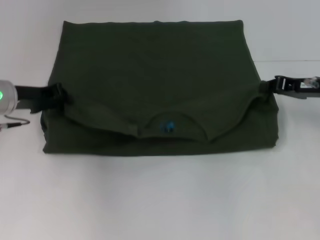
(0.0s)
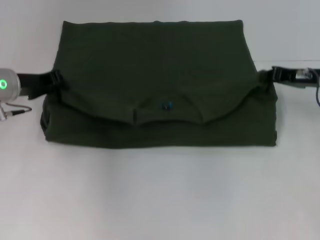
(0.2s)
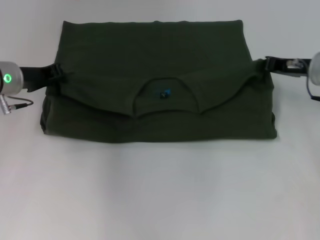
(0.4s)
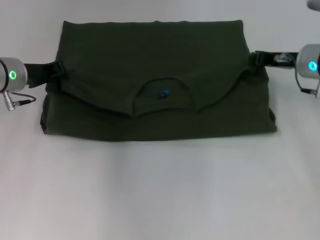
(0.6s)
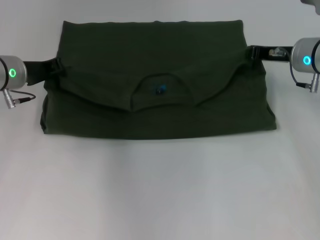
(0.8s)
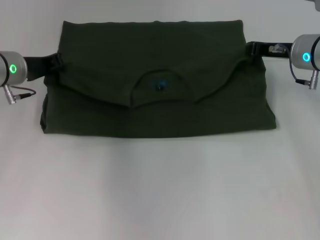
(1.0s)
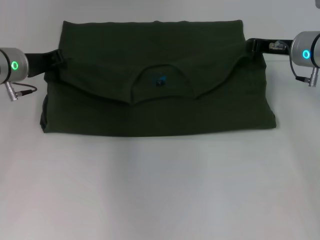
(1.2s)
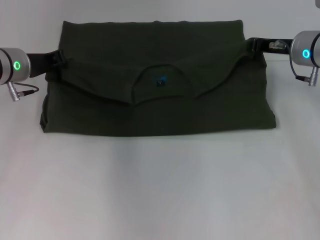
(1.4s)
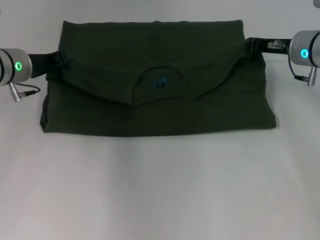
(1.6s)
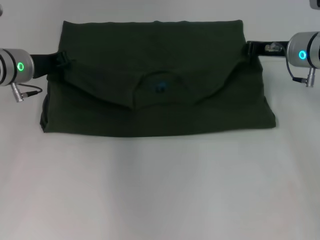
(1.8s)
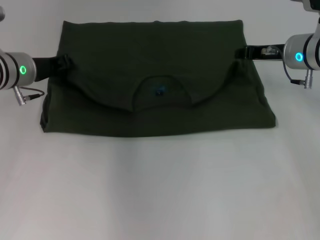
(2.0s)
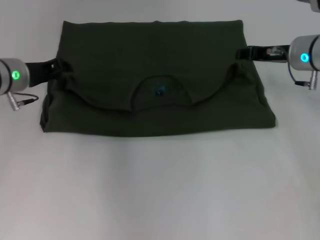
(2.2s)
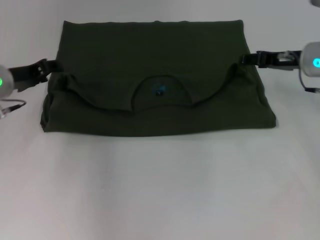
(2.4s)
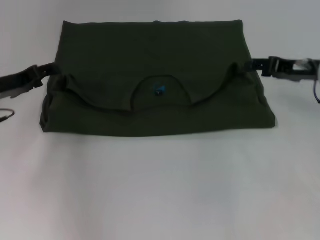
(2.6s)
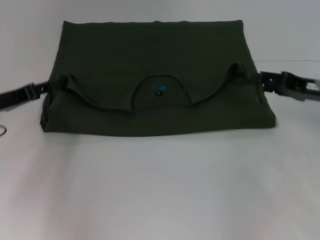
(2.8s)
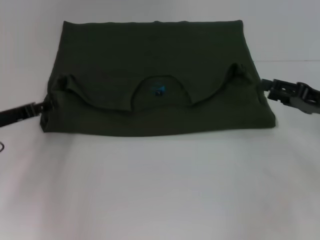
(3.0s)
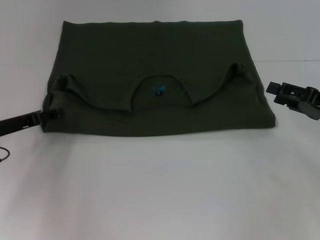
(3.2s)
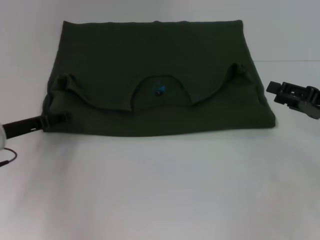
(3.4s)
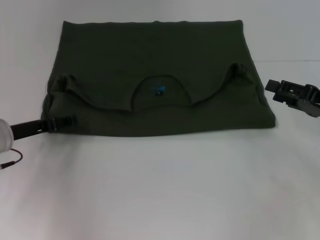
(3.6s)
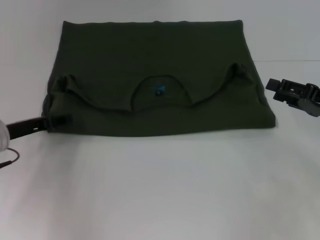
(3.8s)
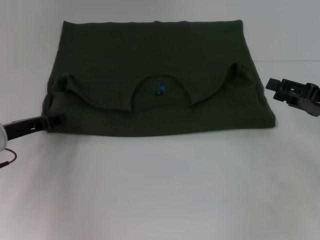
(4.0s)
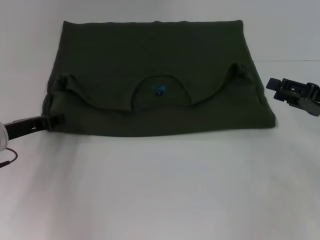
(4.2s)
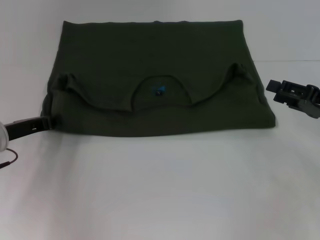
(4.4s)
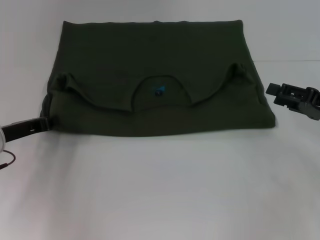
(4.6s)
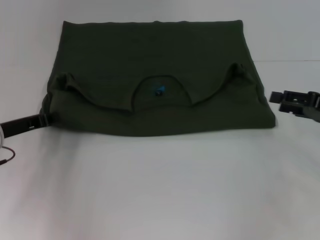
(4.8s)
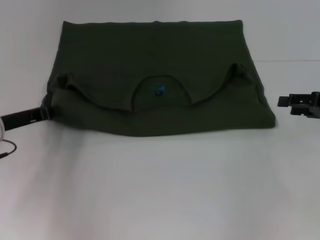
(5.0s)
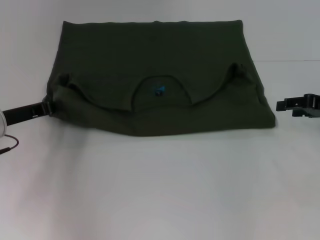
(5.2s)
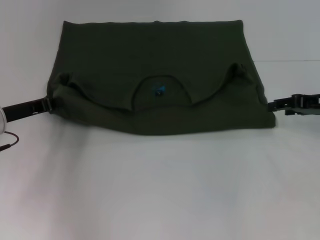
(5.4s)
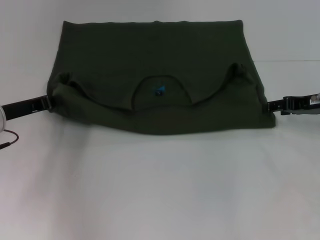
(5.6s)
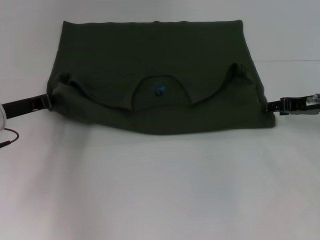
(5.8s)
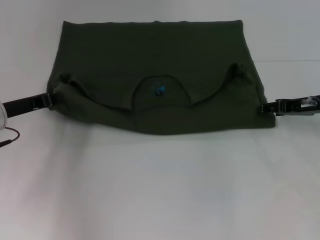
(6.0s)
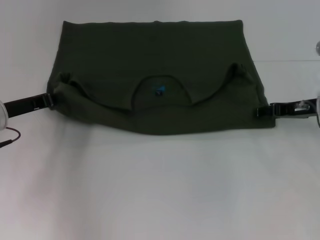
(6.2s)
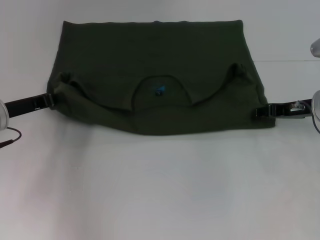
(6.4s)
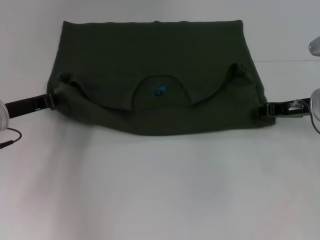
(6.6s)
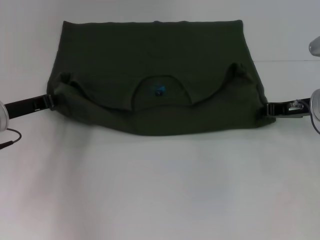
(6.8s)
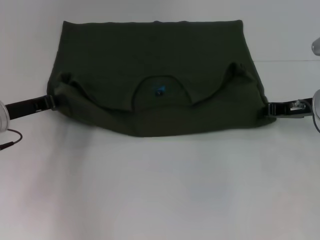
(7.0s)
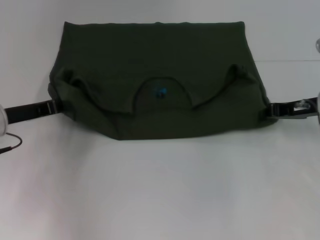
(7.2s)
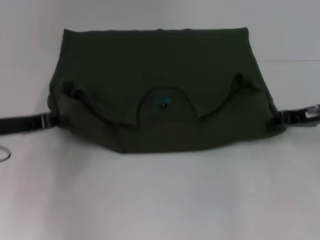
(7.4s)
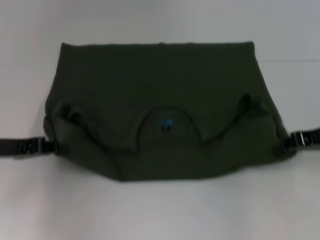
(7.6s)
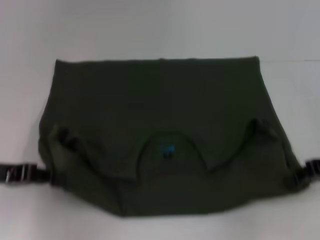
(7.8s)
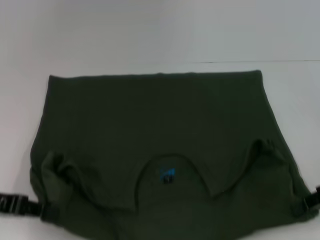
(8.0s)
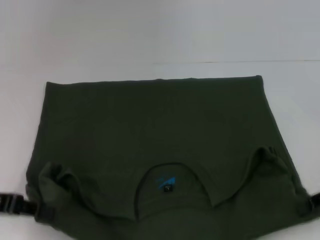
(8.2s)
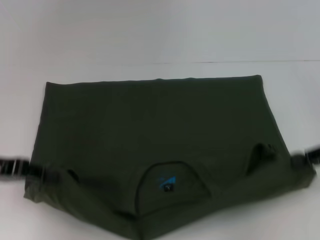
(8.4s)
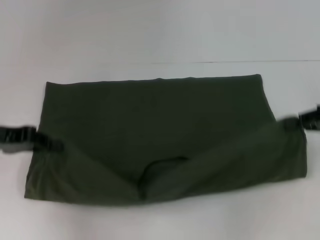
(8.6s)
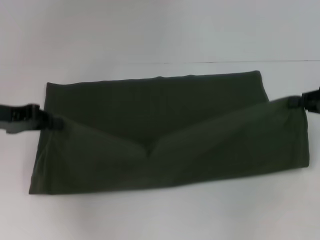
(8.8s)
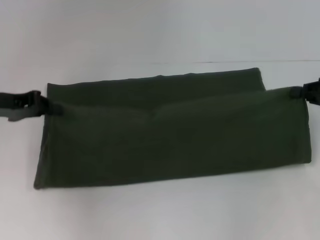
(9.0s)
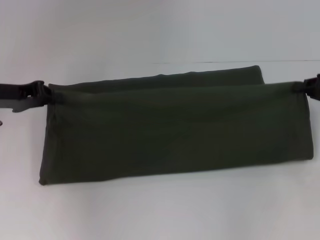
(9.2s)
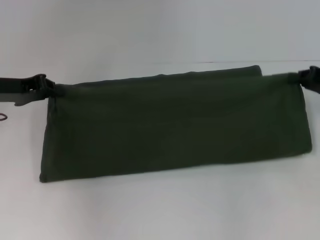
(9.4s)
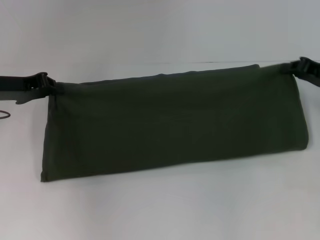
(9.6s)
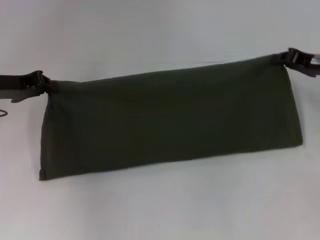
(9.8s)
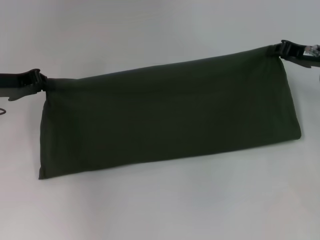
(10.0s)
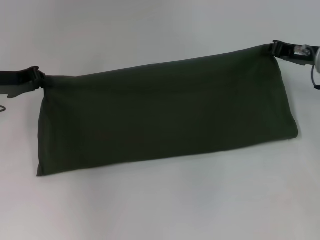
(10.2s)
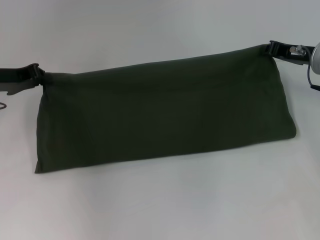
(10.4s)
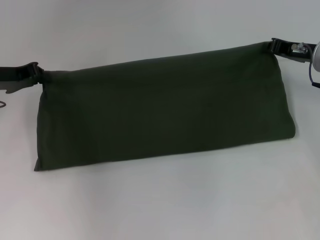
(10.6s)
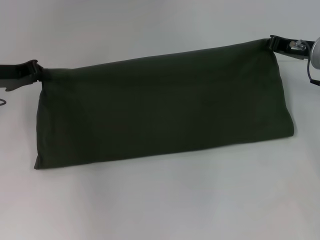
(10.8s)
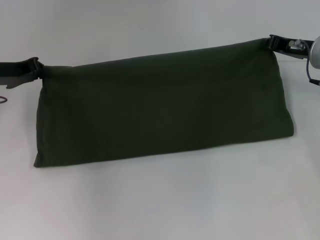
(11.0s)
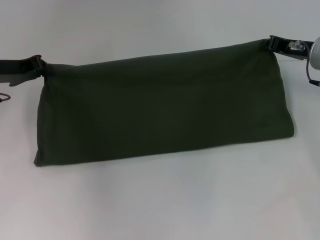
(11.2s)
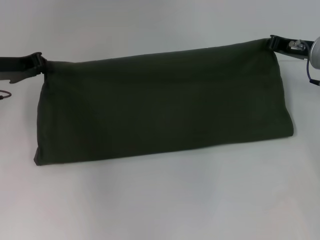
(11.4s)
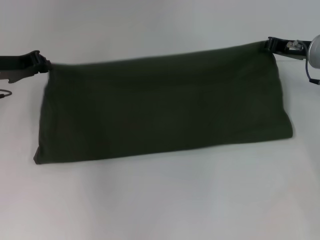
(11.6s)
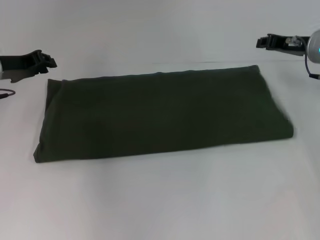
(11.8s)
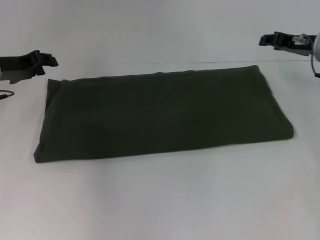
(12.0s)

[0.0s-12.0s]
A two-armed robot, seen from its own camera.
Step, 0.0s to 2.0s: Fold the clothes with your left hand.
Step, 0.0s to 2.0s: Fold the clothes with your right hand.
Step, 2.2s to 8.0s: Pull the clothes with your left hand.
Step, 2.2s to 8.0s: Pull the clothes with your right hand.
Step, 8.2s to 11.6s: Fold the clothes with your right hand.
0.0s to 1.6s: The right gripper travels forward and to the left by roughly 10 cm, while the left gripper shifts by some 5 cm.
1.6s to 3.0s: The right gripper goes roughly 15 cm backward and to the right, and opens. Meanwhile the left gripper moves backward, to the left and downward, some 10 cm, and opens up.
3.0s to 4.4s: The left gripper closes its fingers.
4.4s to 6.0s: The right gripper moves forward, approximately 5 cm.
6.0s to 7.6s: The right gripper ends up roughly 5 cm from where it was, and closes. Meanwhile the left gripper heads backward, covering about 5 cm.
7.6s to 9.0s: The left gripper changes place by approximately 5 cm.
9.0s to 10.4s: The right gripper is displaced forward and to the left by approximately 10 cm.
10.4s to 12.0s: The grippers make only small movements.

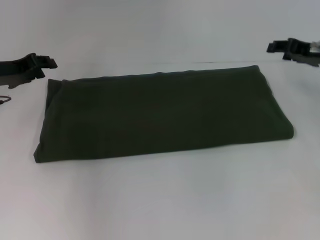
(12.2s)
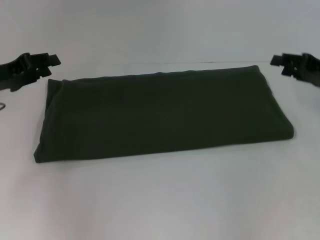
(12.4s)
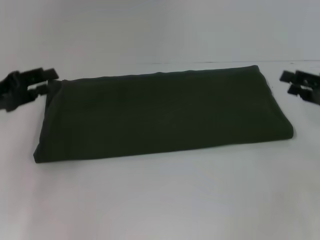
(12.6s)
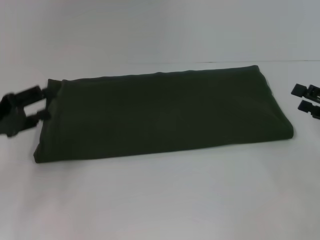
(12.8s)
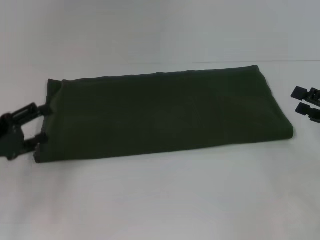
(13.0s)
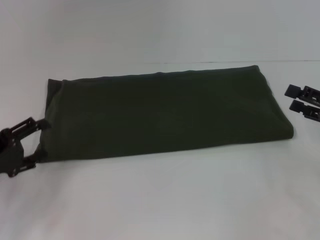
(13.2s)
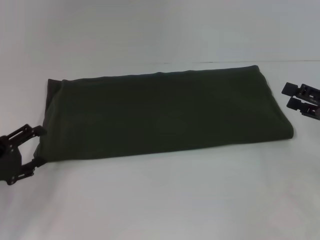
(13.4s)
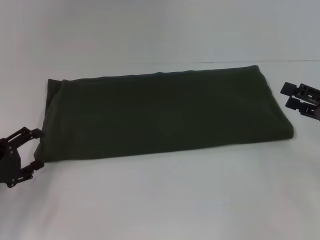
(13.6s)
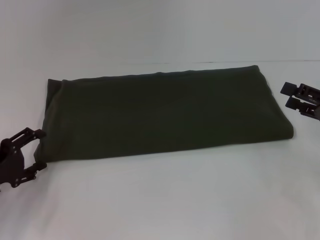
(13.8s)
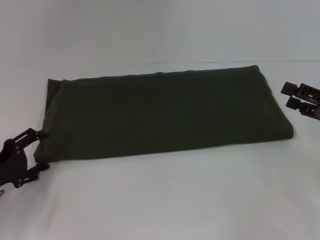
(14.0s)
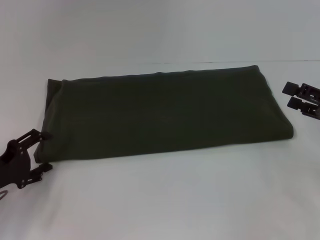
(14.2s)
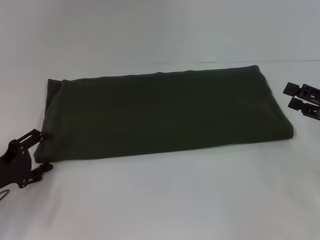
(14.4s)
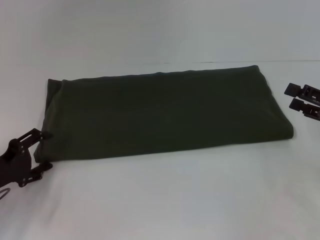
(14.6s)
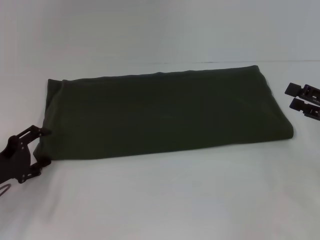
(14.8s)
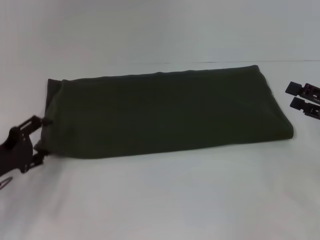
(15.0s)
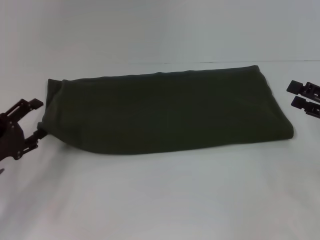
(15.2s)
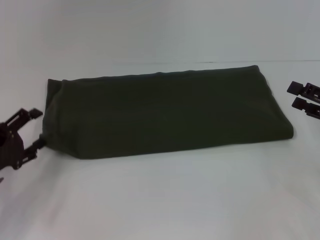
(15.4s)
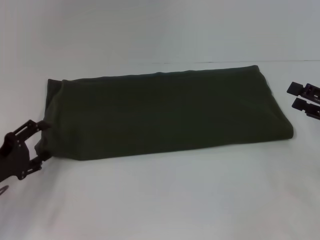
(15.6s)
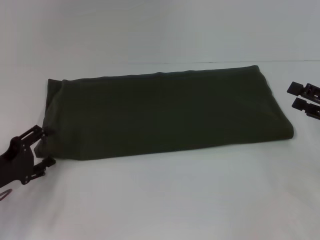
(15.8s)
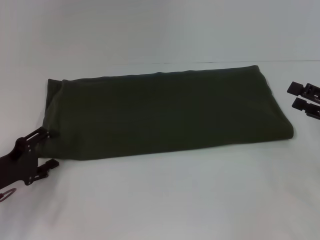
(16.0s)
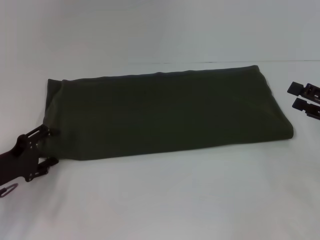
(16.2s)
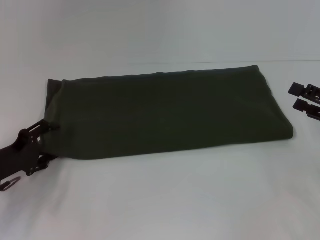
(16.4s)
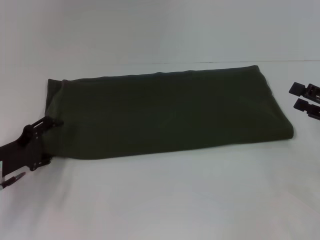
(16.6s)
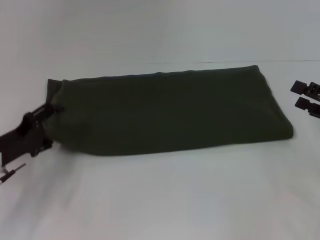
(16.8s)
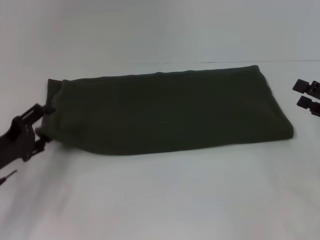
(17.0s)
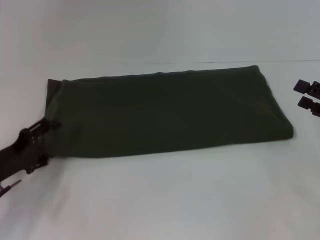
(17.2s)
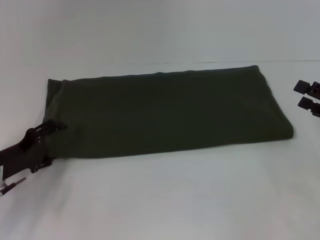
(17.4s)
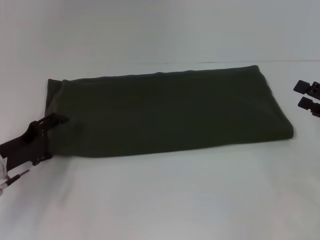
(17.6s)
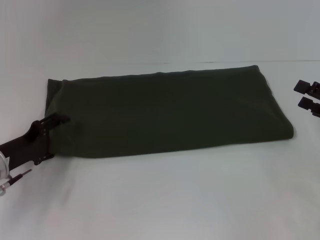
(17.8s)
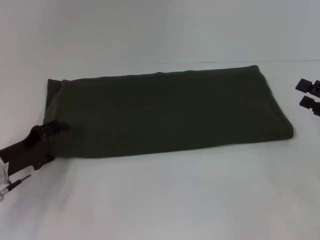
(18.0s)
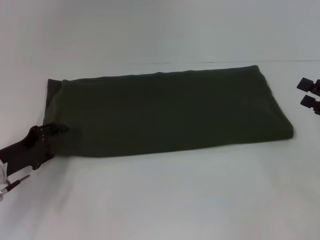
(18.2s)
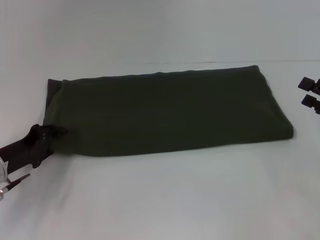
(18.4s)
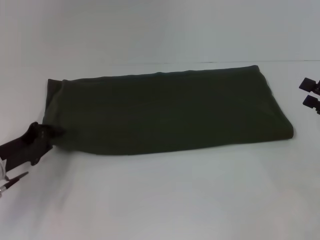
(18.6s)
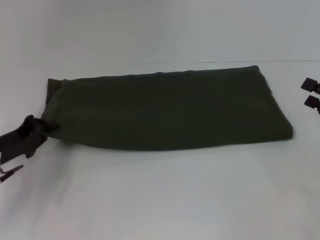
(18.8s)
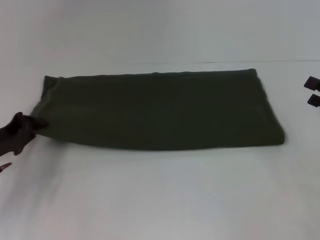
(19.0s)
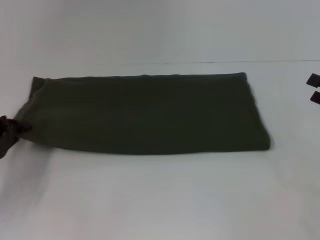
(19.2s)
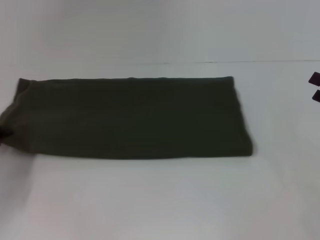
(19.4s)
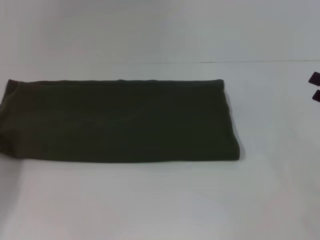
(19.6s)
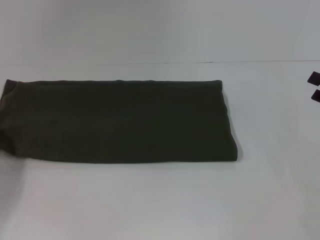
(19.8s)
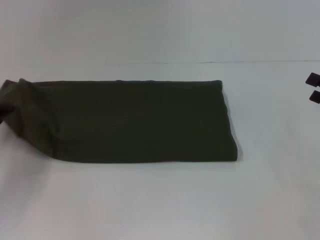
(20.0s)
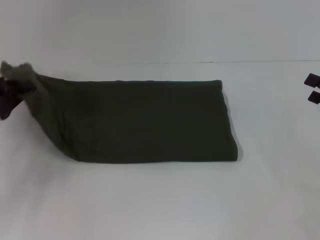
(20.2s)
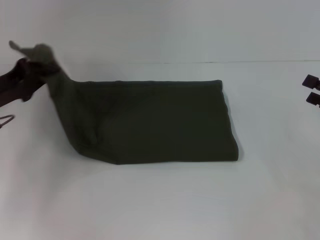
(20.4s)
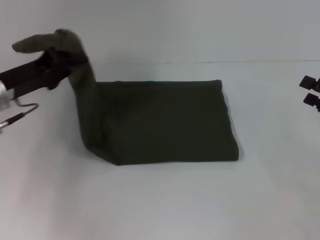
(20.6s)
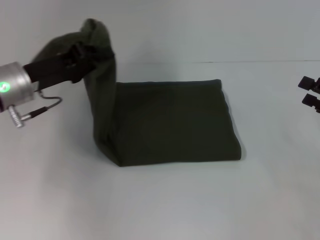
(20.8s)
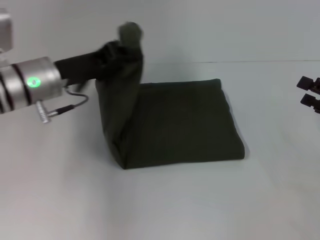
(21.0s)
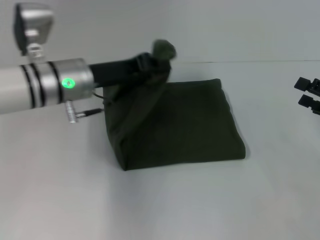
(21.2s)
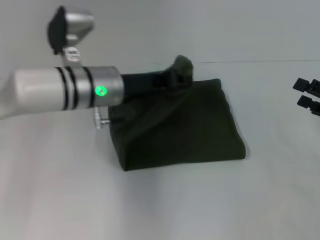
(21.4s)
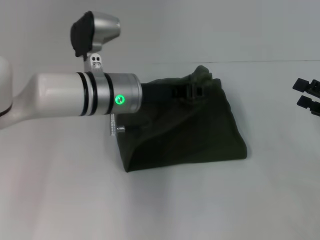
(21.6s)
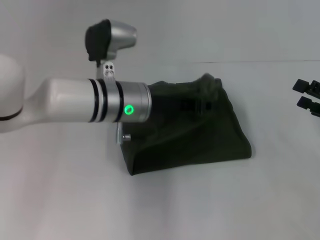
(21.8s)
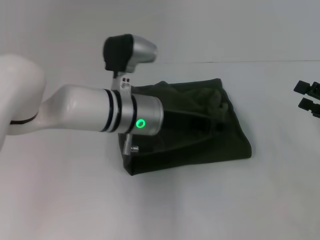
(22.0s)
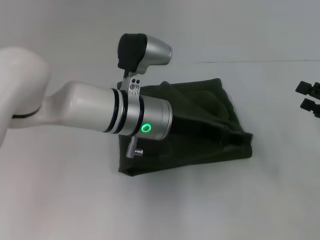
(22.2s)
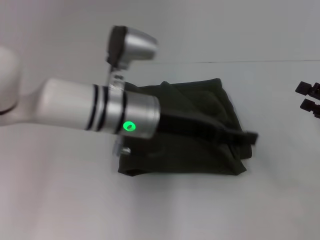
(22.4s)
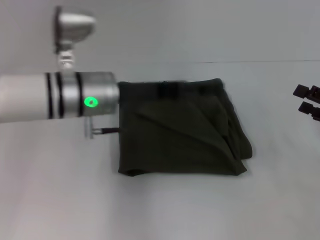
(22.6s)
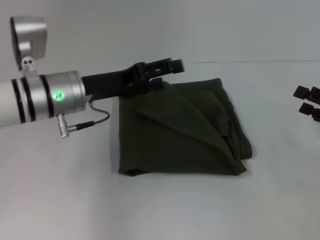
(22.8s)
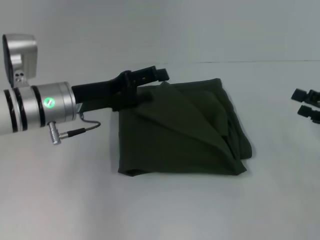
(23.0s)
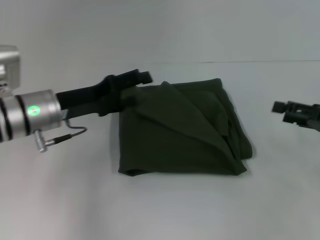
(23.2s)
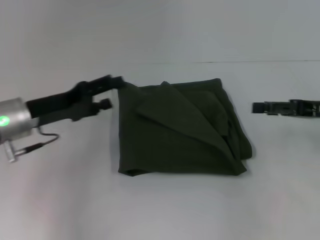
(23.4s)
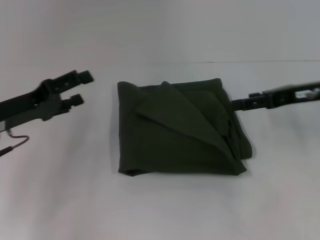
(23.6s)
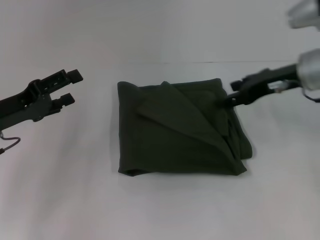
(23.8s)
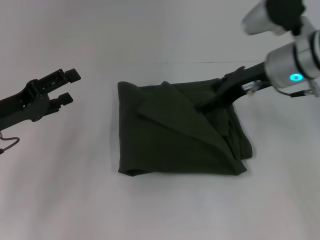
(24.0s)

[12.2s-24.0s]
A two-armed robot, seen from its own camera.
Step, 12.2s to 22.2s: Fold the clothes with your left hand.
12.2s to 13.6s: The left gripper is displaced backward and downward by approximately 20 cm, and opens. The right gripper heads backward, covering some 15 cm, and opens its fingers.
13.6s to 16.6s: The grippers move only a little.
16.6s to 18.2s: The grippers make only small movements.
18.2s to 19.6s: The left gripper heads to the left, covering roughly 10 cm, and closes up.
19.6s to 21.0s: The left gripper moves to the right, upward and forward, approximately 25 cm.
21.0s to 22.6s: The left gripper heads to the right, covering roughly 5 cm, and opens.
22.6s to 24.0s: The right gripper goes roughly 25 cm to the left, forward and upward. Meanwhile the left gripper heads to the left, covering some 15 cm.
